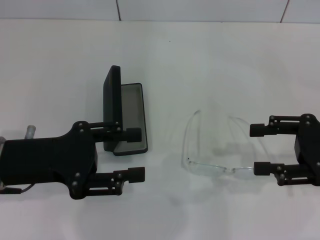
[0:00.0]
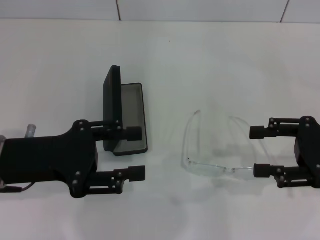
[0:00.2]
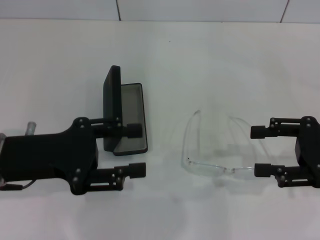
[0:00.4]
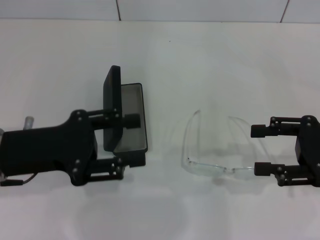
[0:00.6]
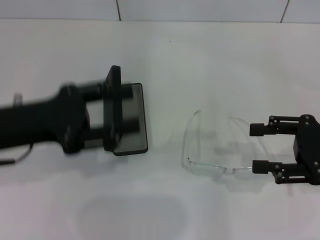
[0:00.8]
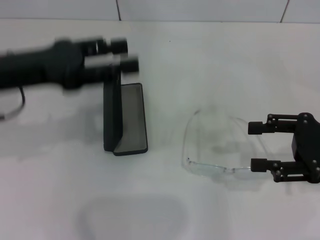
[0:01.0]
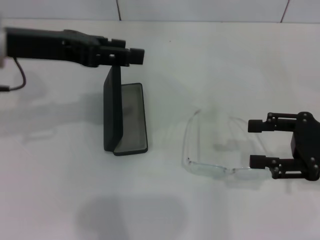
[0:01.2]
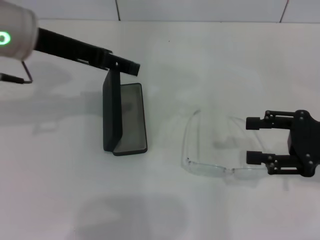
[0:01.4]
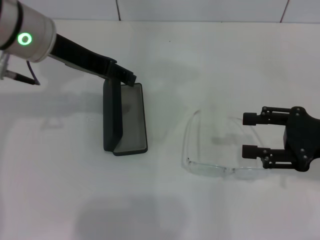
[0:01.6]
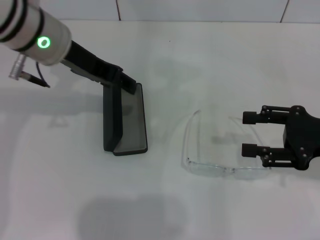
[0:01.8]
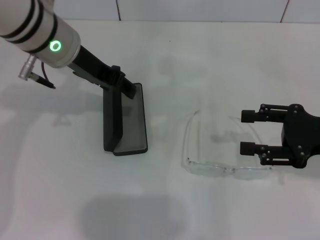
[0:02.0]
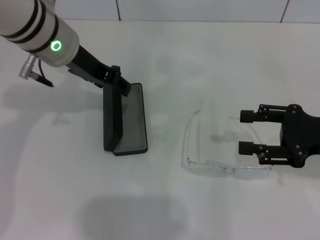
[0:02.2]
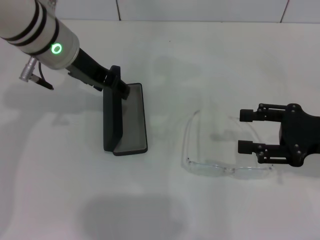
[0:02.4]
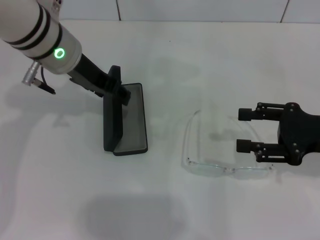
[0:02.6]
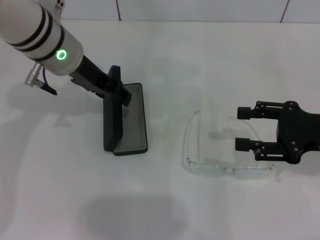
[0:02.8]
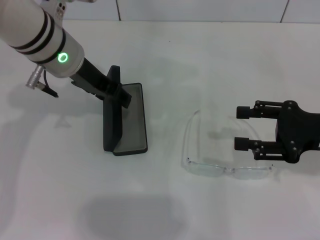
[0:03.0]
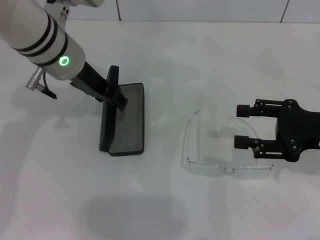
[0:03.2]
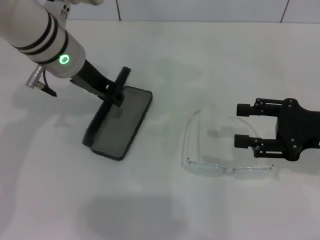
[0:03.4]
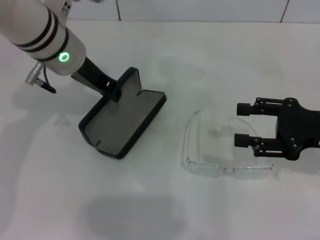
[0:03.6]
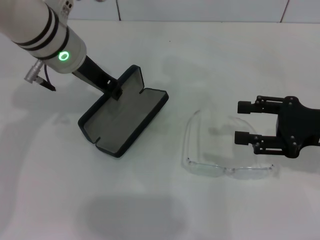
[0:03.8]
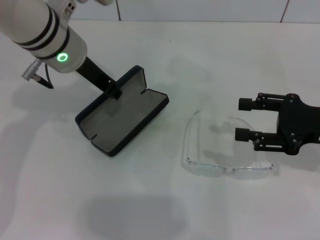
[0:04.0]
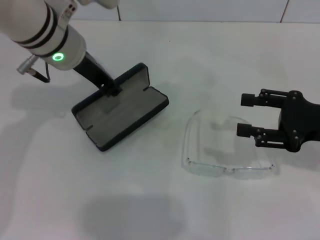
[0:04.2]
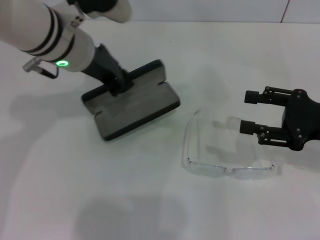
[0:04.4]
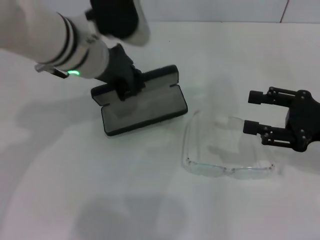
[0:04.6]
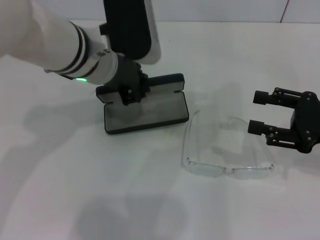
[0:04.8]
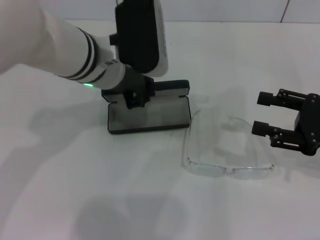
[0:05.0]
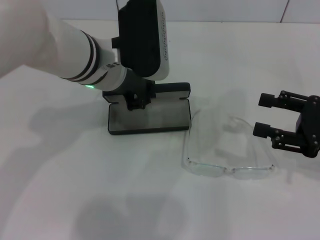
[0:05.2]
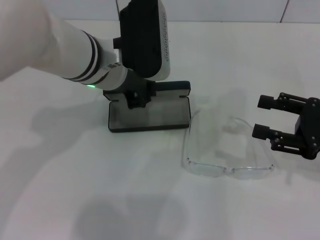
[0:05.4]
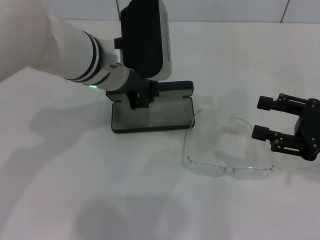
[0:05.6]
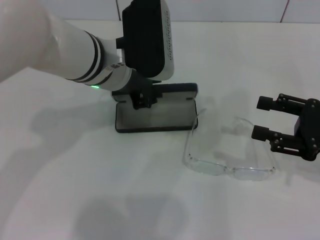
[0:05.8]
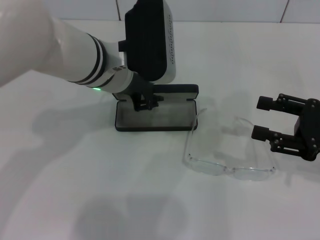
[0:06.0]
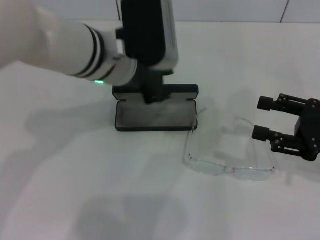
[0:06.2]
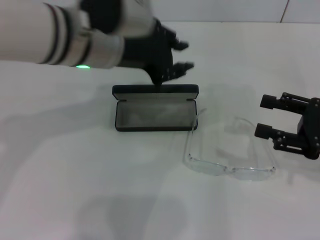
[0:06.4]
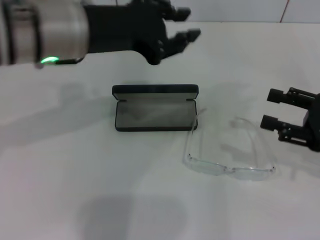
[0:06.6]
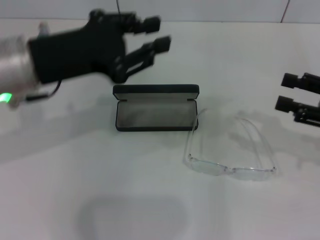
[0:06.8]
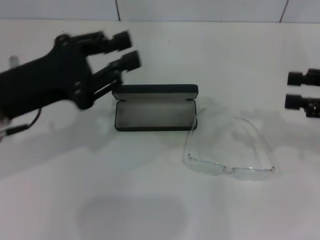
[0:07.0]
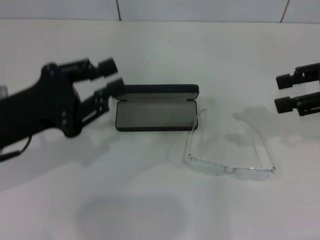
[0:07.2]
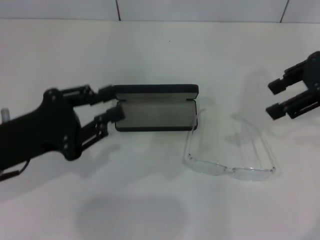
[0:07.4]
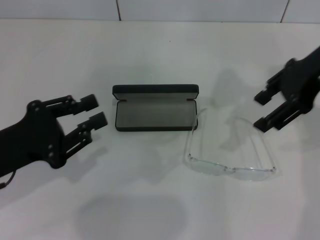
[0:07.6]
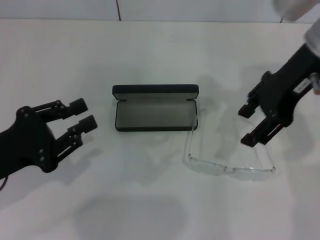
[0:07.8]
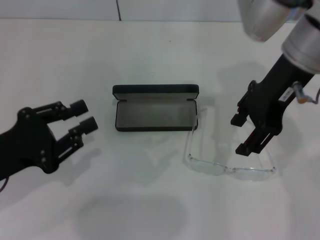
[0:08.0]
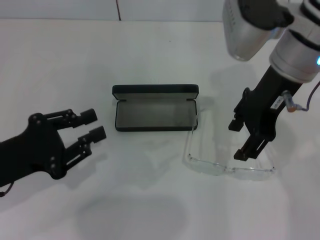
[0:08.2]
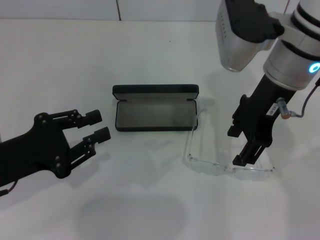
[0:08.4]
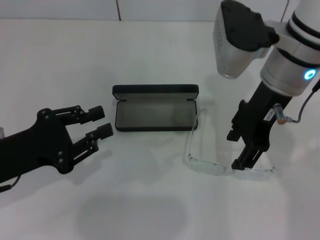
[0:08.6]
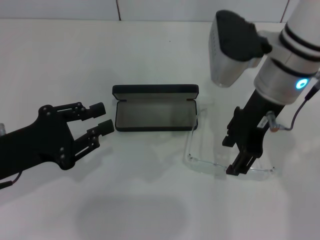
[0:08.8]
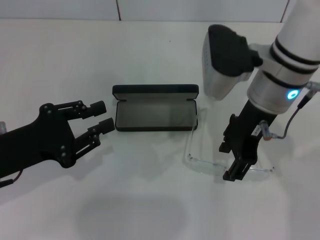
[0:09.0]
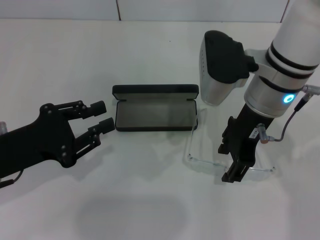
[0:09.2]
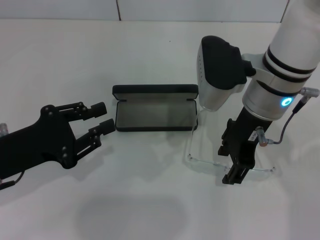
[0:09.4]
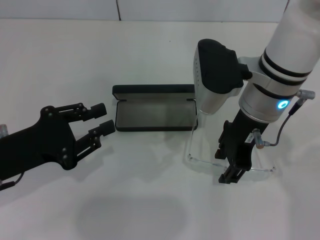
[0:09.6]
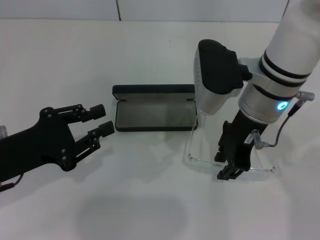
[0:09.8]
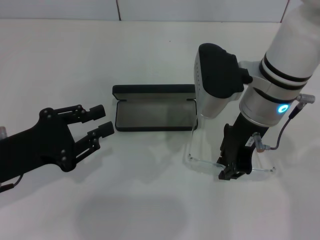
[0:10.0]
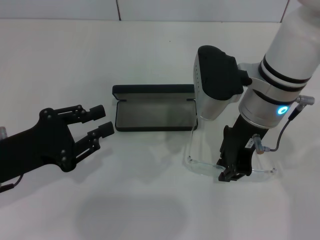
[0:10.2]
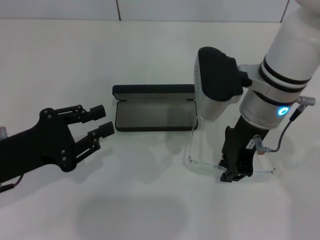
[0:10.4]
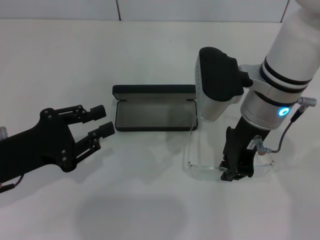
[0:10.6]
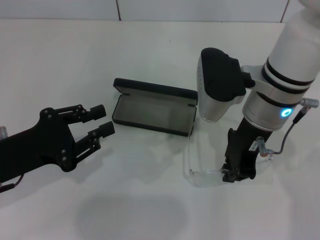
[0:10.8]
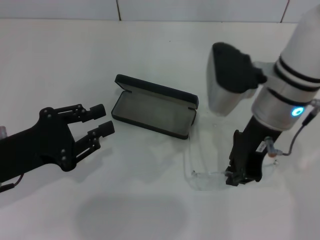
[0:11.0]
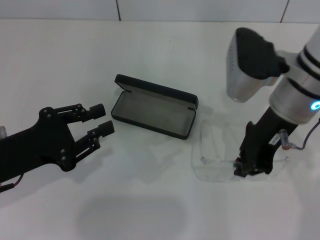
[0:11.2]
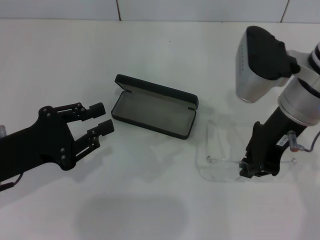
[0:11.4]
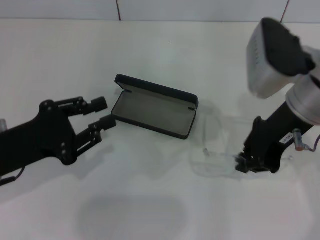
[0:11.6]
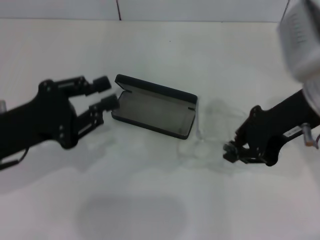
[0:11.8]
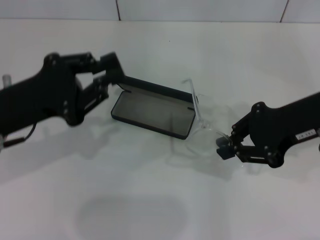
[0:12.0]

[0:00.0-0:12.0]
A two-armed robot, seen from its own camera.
Step, 0:00.0 to 0:03.4: Grab the glasses case with your left hand.
Step, 0:03.6 to 0:05.8: Place the glasses case in the center of the table with your left hand.
Step, 0:06.0 to 0:10.8: Grab the eyeglass frame with your right hand.
0:00.0 to 0:01.6: The left gripper shifts about 15 cm forward, upward and to the right.
0:01.6 to 0:03.0: The left gripper changes place by some 5 cm.
0:03.0 to 0:04.4: The left gripper closes.
0:04.4 to 0:06.0: The left gripper ends up approximately 5 cm from where it was.
0:06.0 to 0:07.6: The right gripper goes about 20 cm upward, forward and to the left. The left gripper shifts approximately 25 cm to the left and backward.
0:07.6 to 0:09.0: The right gripper shifts some 15 cm to the left and downward.
0:09.0 to 0:10.4: The right gripper closes up.
0:10.4 to 0:12.0: The left gripper shifts by approximately 5 cm; the right gripper goes roughly 10 cm to the right.

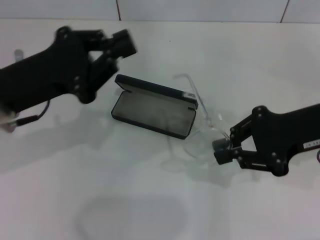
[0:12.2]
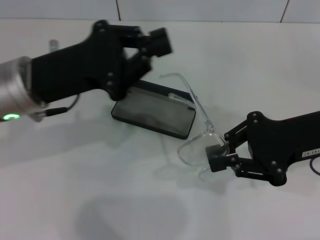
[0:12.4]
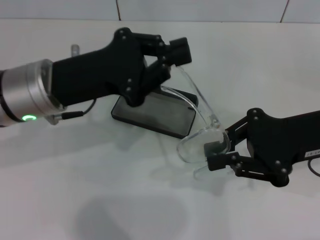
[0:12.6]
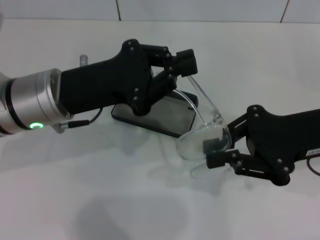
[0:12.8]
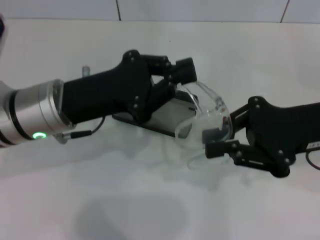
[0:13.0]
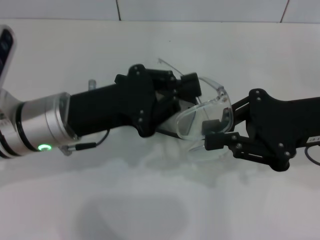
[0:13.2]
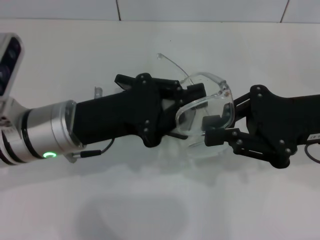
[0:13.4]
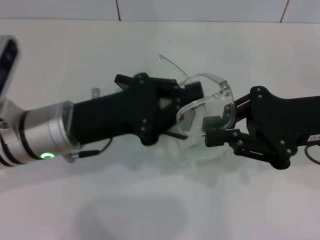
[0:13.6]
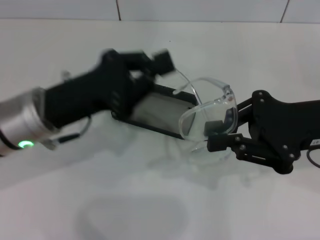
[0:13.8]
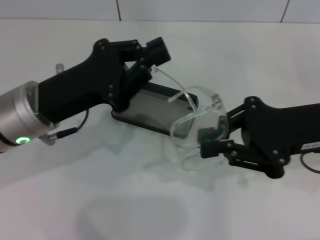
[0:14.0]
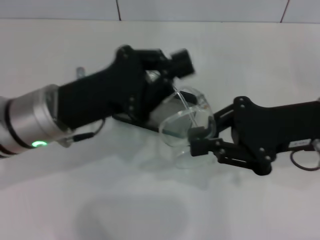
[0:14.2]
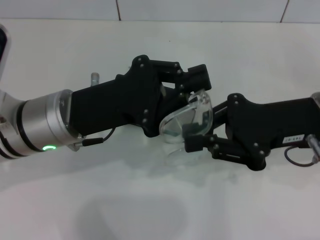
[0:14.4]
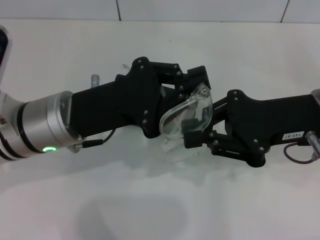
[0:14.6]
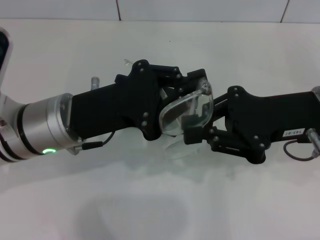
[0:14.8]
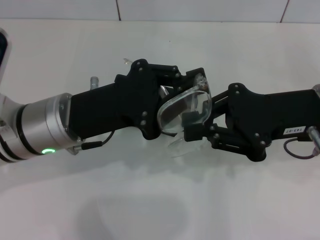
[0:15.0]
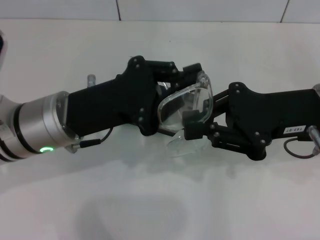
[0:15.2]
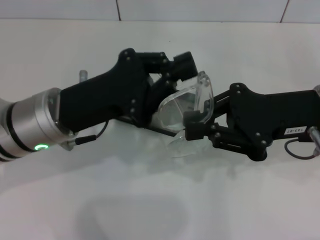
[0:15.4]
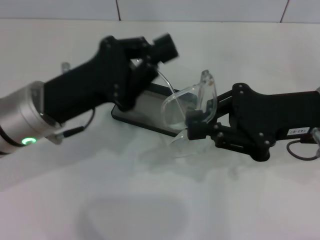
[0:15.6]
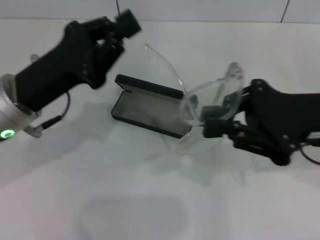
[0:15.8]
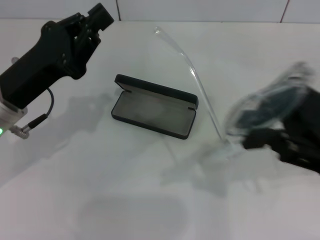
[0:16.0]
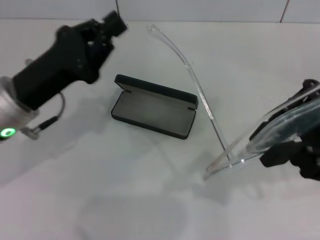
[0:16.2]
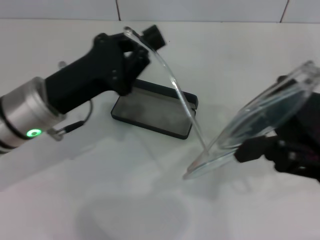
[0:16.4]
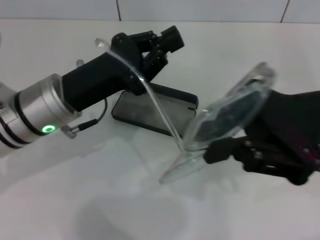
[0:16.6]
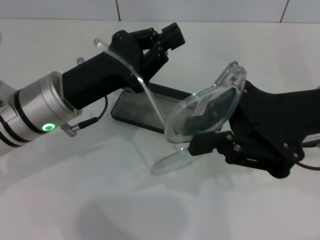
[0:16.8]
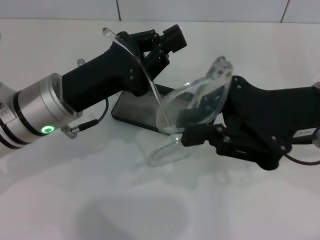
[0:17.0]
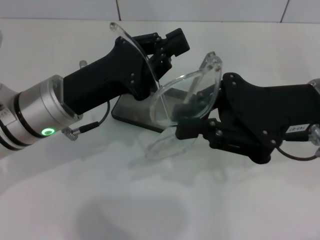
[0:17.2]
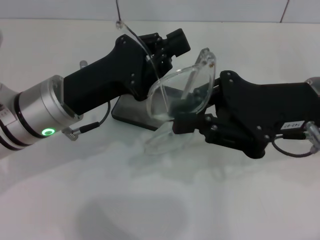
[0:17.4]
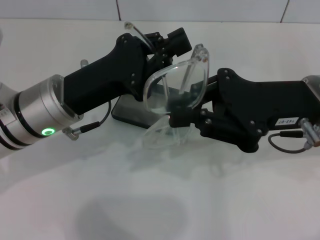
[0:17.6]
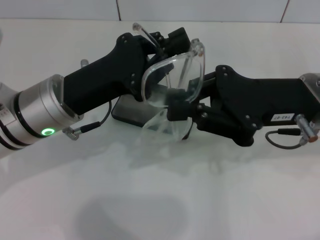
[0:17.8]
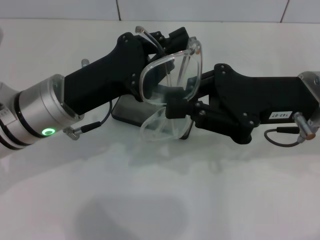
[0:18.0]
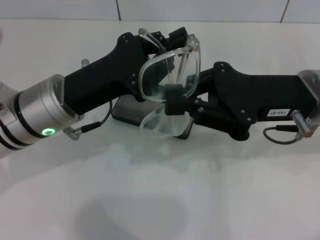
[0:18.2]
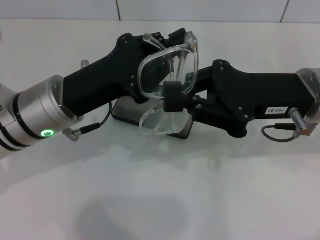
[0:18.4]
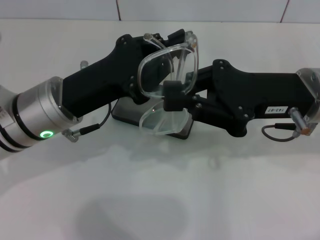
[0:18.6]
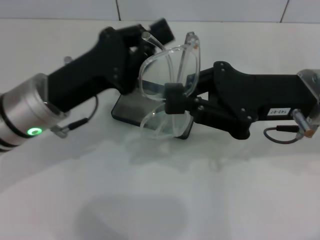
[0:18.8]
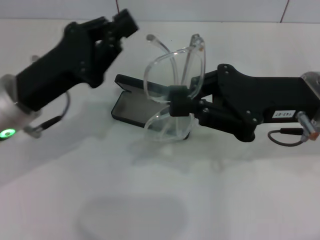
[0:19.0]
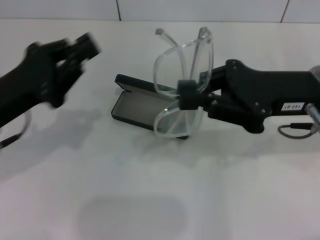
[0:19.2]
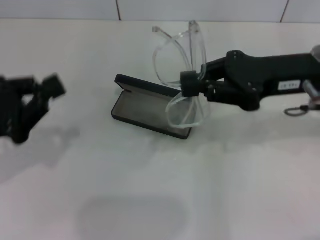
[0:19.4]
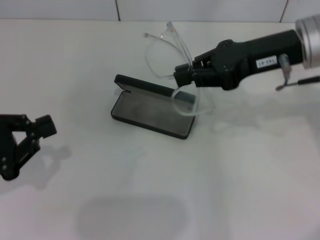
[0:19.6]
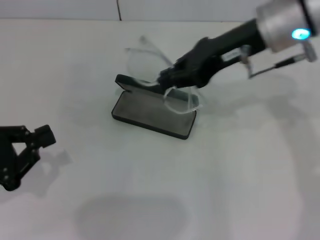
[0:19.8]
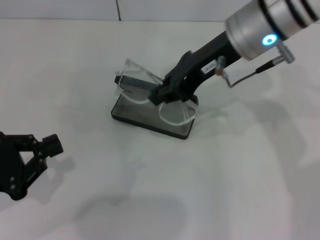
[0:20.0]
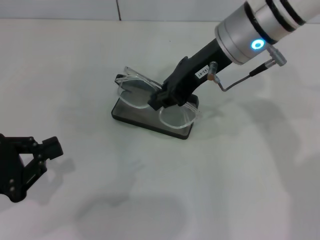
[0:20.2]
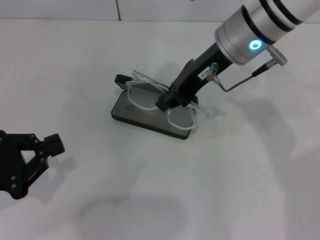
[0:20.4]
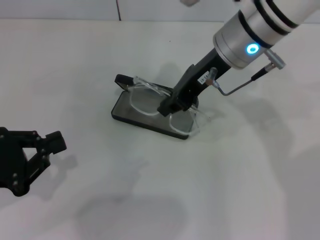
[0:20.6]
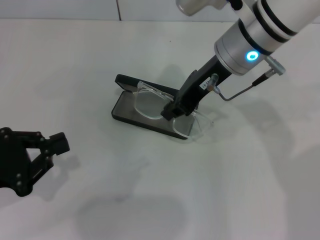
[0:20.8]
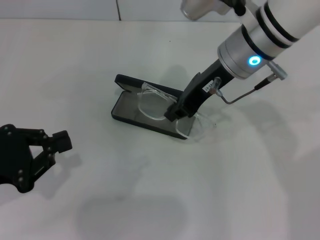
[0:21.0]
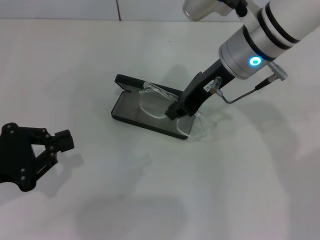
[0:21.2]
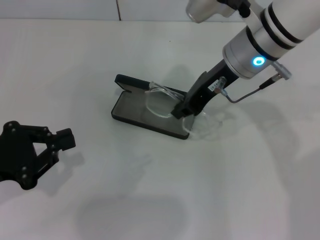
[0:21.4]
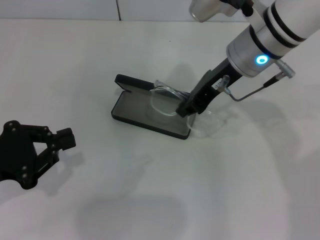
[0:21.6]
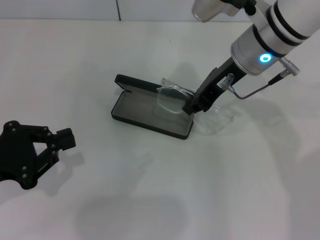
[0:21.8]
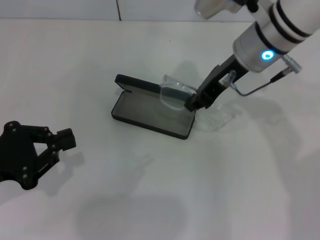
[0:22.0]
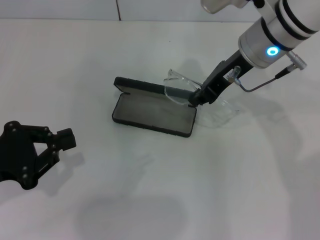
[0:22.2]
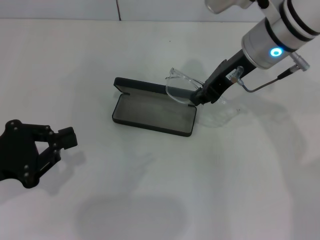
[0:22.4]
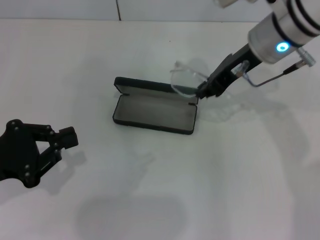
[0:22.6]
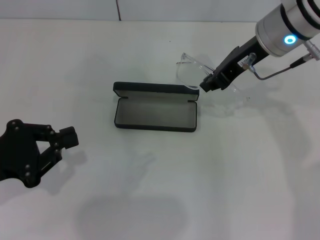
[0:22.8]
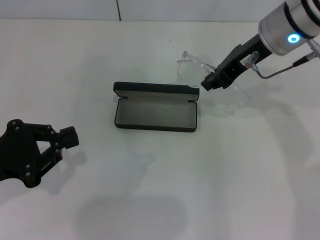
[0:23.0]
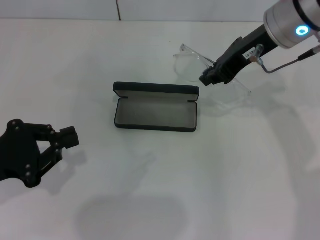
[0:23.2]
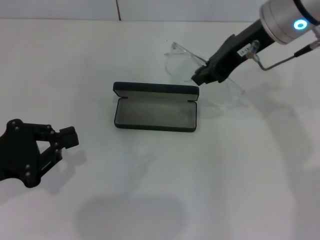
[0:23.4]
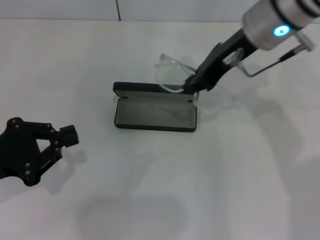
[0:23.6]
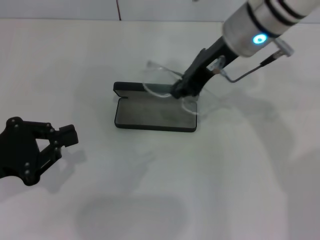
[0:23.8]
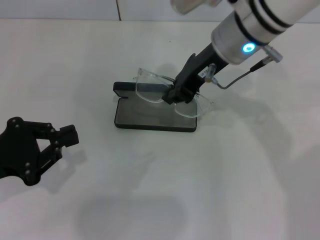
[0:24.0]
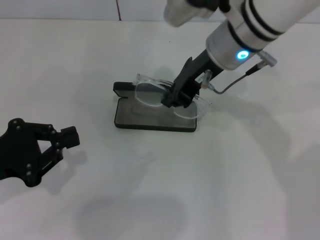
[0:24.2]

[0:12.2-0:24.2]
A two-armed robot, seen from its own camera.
Step, 0:12.2 to 0:18.4: Fold the frame with your left hand.
0:12.2 to 0:13.8: The left gripper moves roughly 5 cm.
0:18.2 to 0:19.8: The right gripper shifts roughly 10 cm upward and forward. The left gripper travels to the left and backward by approximately 20 cm.
0:19.8 to 0:21.2: The right gripper changes place by some 5 cm.
0:21.2 to 0:22.6: The grippers stay close to where they were, moving slightly.
0:22.6 to 0:24.2: The right gripper shifts about 5 cm to the left.
